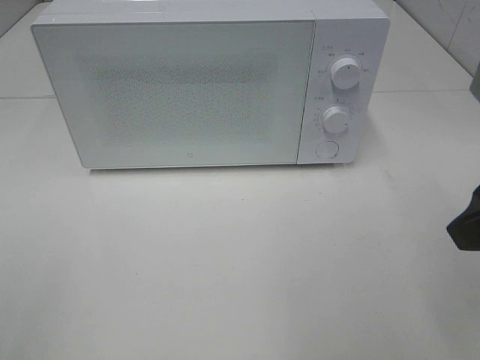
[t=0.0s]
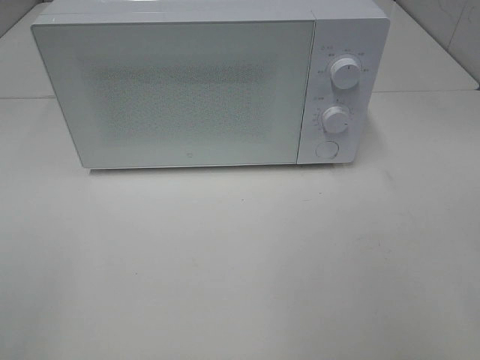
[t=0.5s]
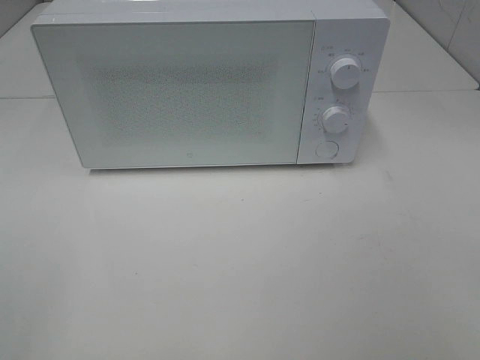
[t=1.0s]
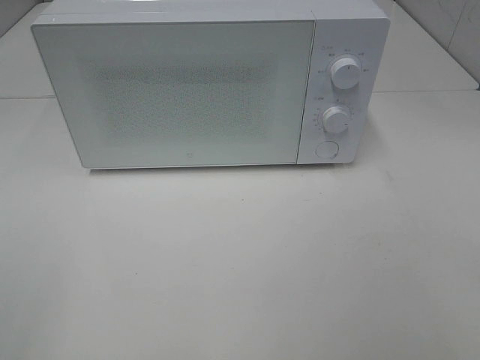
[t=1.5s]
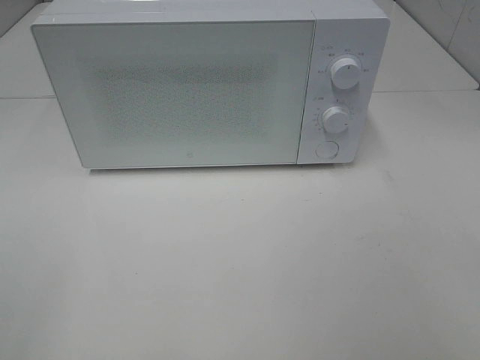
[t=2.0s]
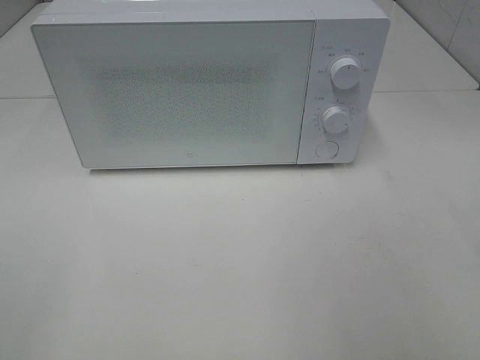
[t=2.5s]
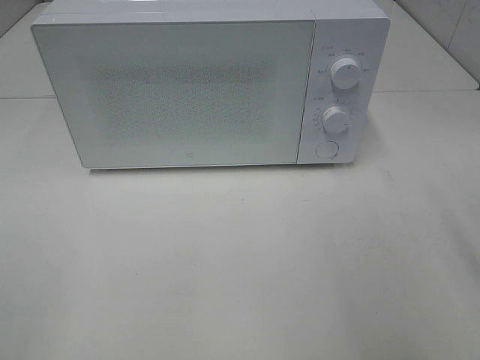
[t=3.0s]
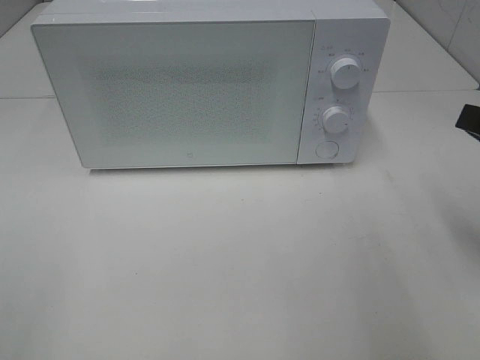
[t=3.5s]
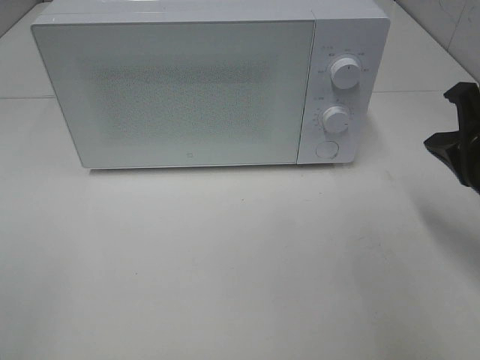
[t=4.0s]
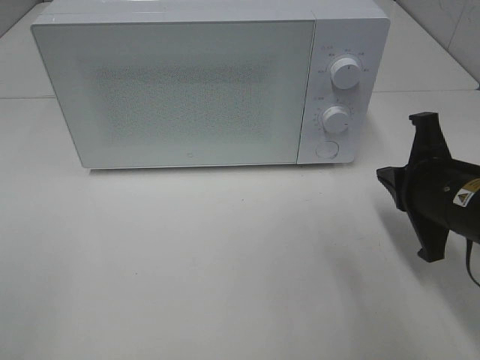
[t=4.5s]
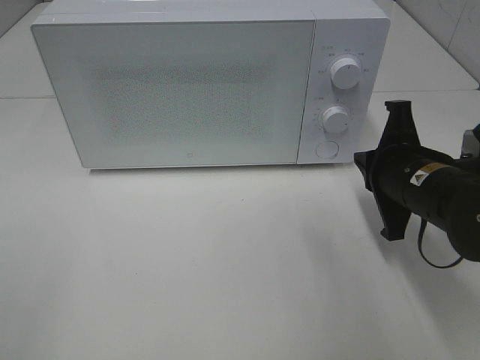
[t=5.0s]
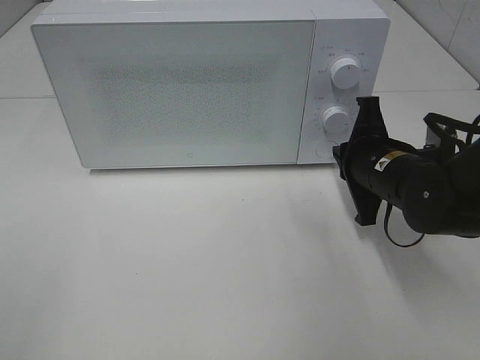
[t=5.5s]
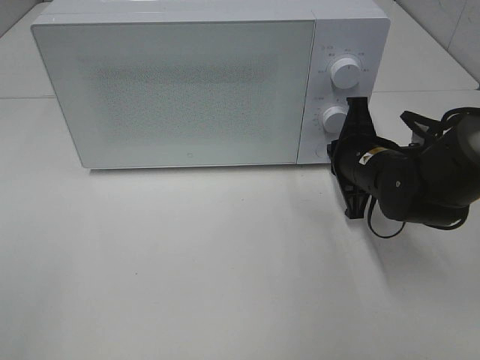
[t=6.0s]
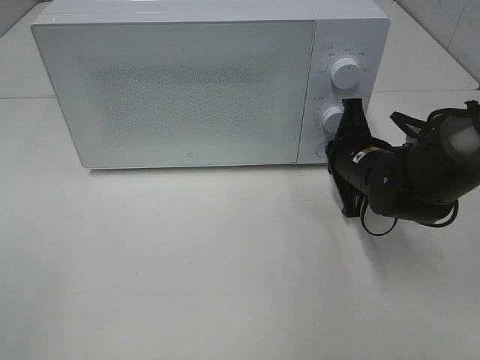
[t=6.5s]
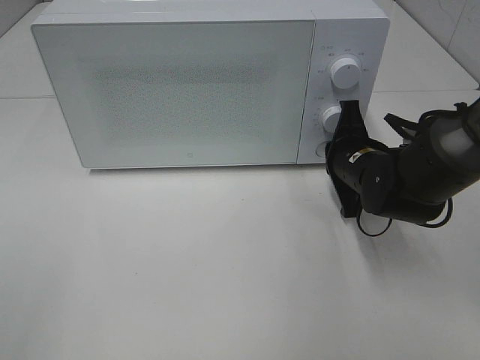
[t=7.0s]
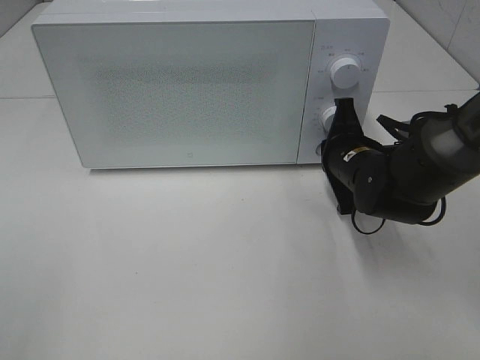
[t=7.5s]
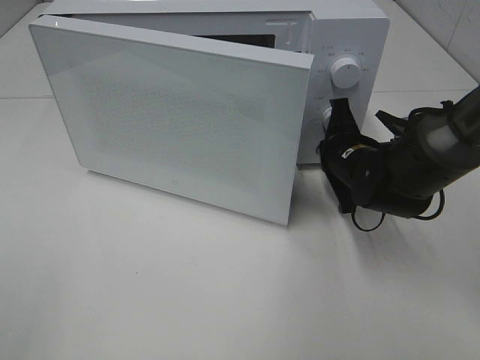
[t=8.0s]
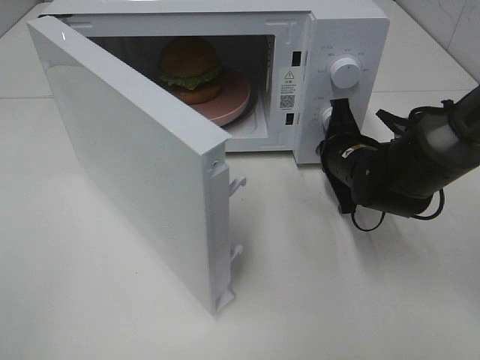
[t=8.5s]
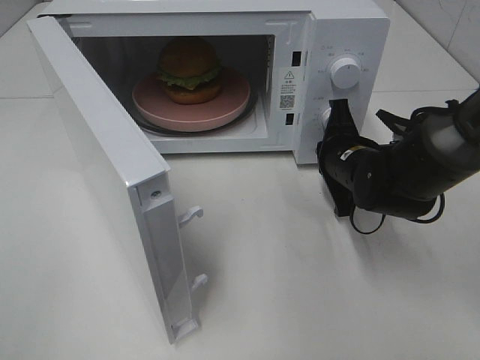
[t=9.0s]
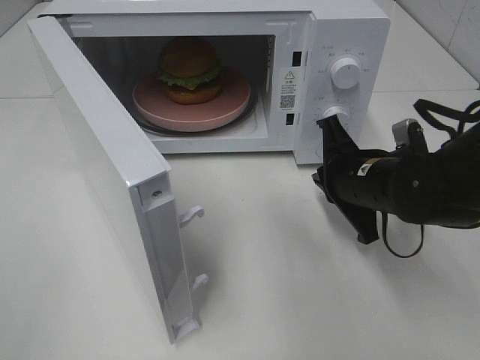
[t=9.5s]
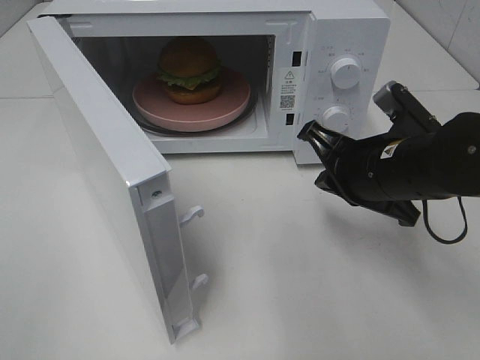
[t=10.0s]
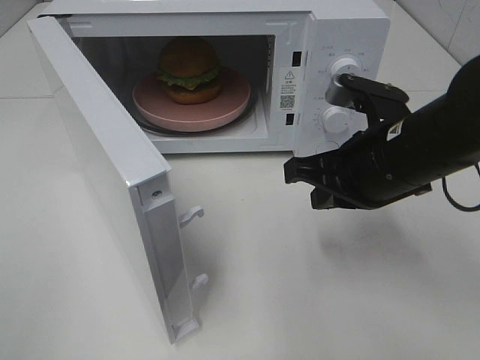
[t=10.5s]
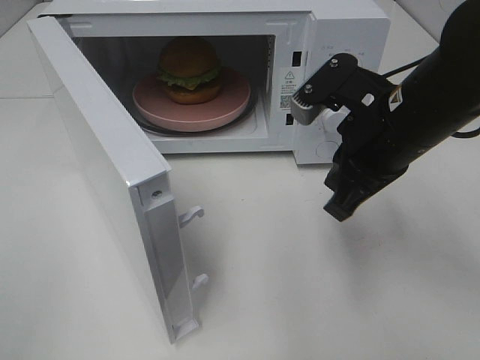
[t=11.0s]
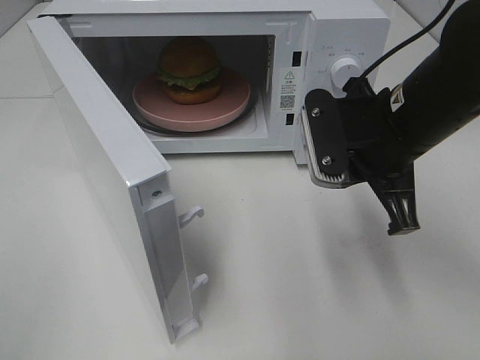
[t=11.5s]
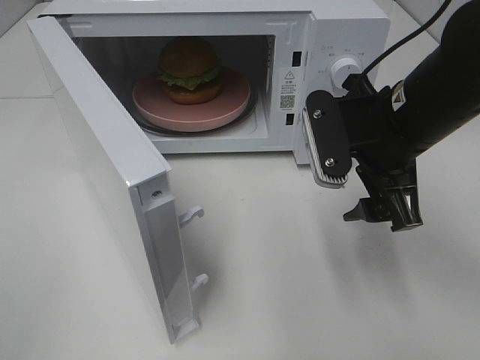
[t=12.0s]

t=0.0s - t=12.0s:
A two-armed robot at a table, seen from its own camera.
Task of the whole recording: Heat the burger.
Step, t=0.0s - t=9.0s: Right hand: press the switch.
t=0.0s - t=2.0s: The right gripper moves backward and to the right, roughly 15 cm.
t=2.0s - t=4.0s: The right gripper shifts about 25 cm forward and downward, and closes its fingers.
t=4.0s - t=6.0s: The right gripper travels forward, to the left and downward by some 15 cm.
t=6.0s - t=8.0s: There are only small adjustments of the grippers.
t=8.0s - t=10.0s: The right gripper goes roughly 10 cm backward and upward.
t=10.0s - t=12.0s: The right gripper is displaced upward by about 5 cm, and opens up.

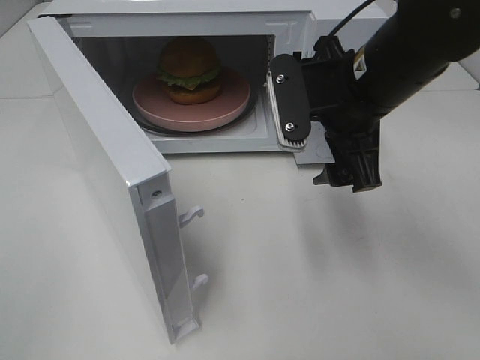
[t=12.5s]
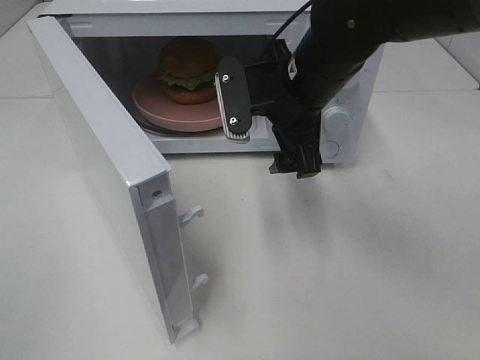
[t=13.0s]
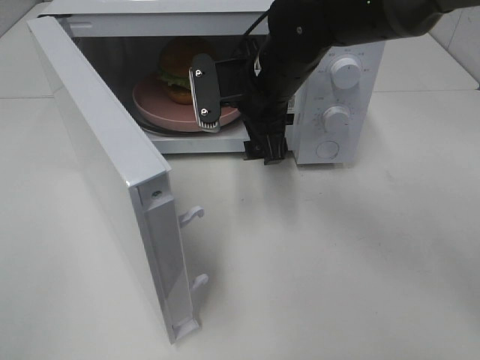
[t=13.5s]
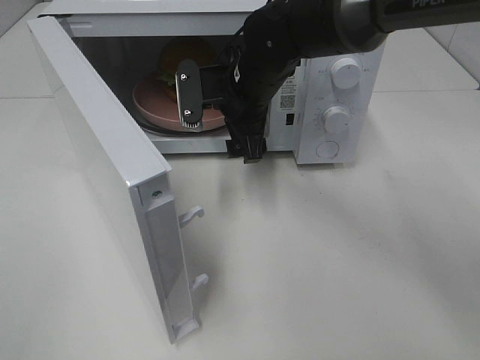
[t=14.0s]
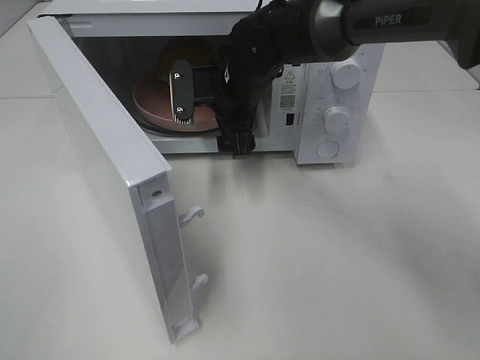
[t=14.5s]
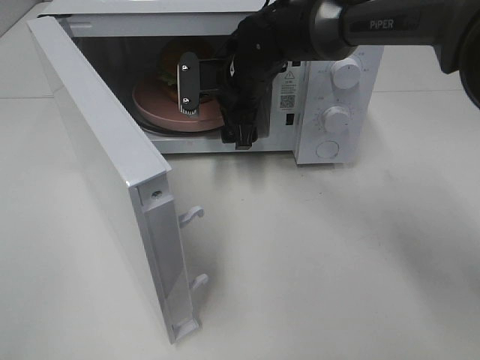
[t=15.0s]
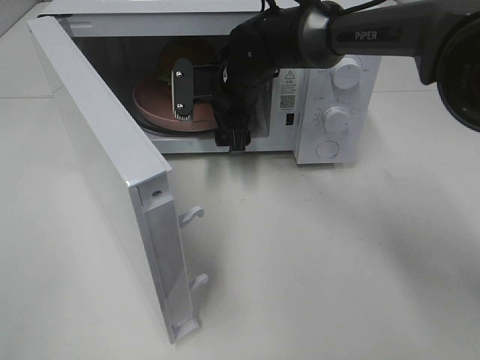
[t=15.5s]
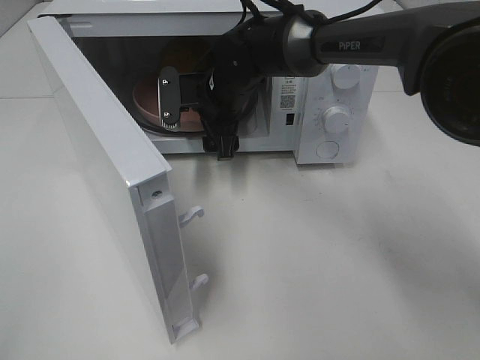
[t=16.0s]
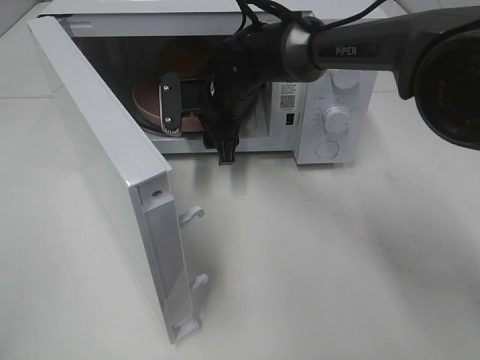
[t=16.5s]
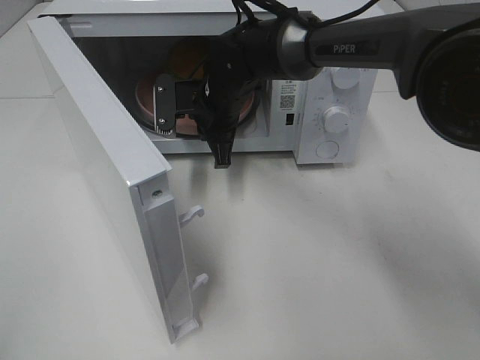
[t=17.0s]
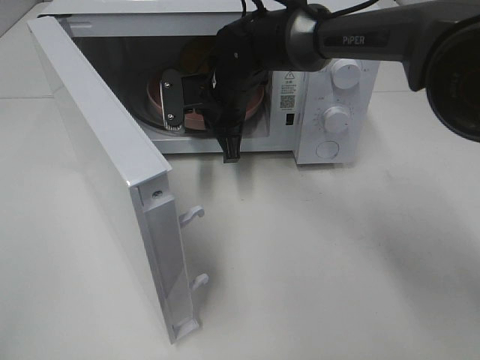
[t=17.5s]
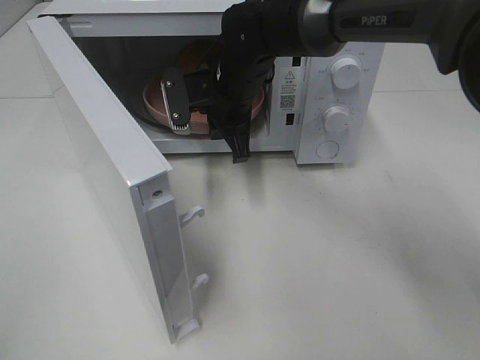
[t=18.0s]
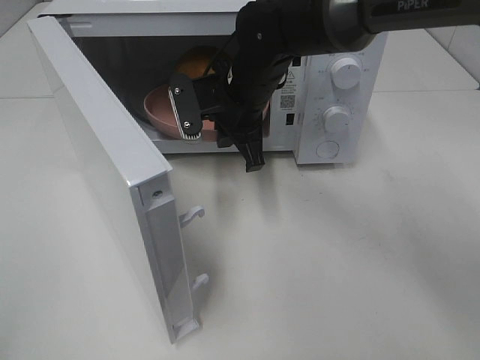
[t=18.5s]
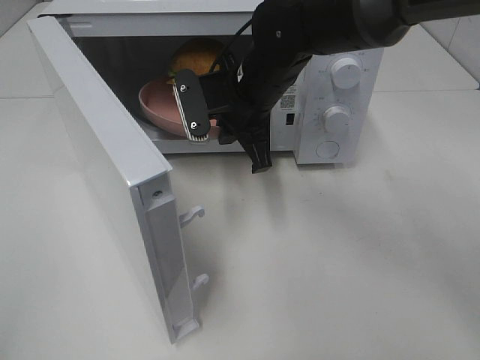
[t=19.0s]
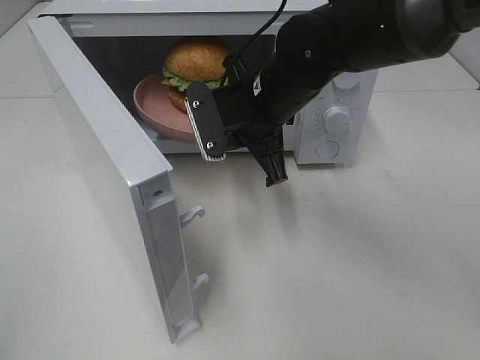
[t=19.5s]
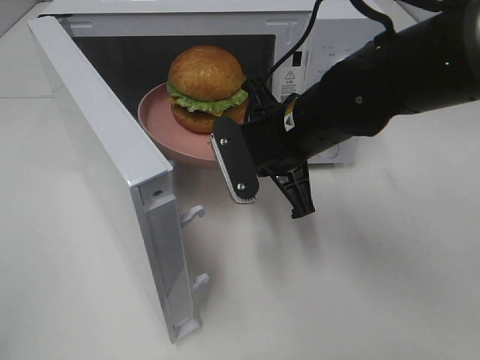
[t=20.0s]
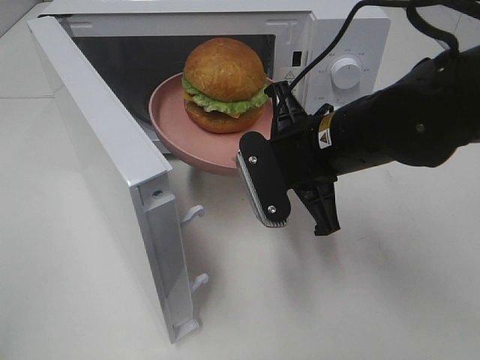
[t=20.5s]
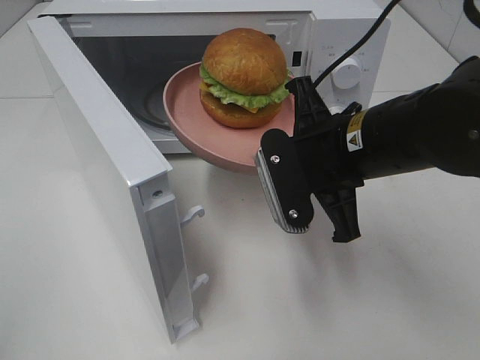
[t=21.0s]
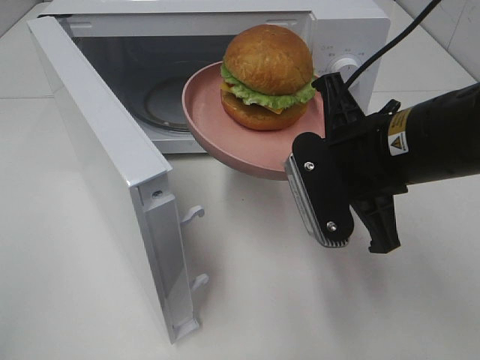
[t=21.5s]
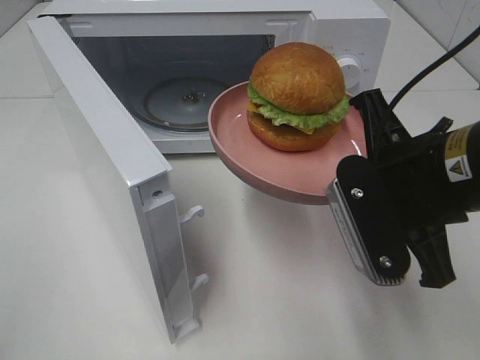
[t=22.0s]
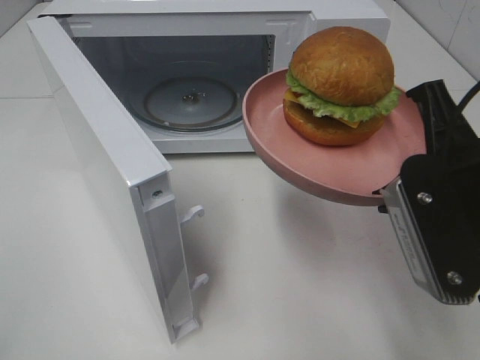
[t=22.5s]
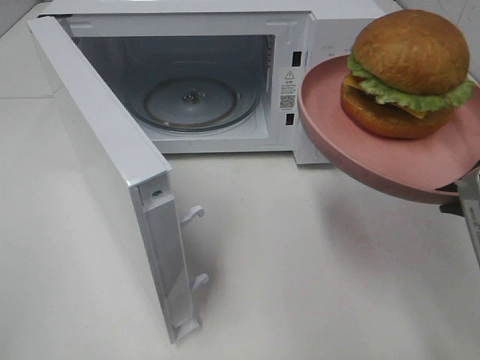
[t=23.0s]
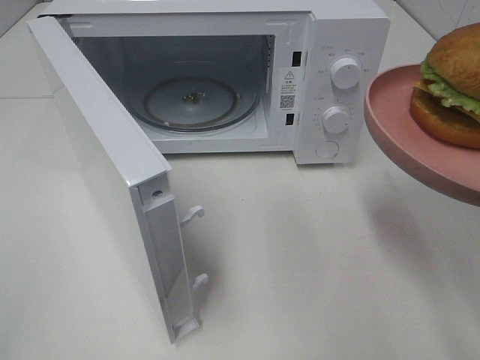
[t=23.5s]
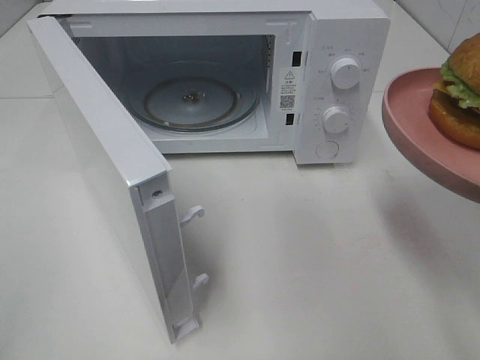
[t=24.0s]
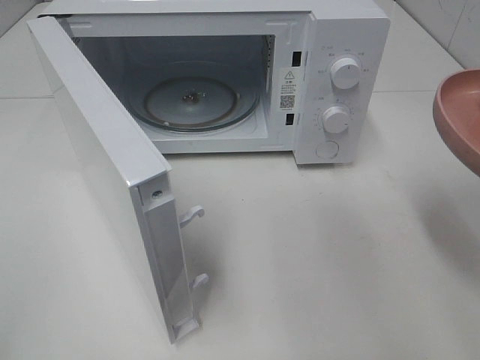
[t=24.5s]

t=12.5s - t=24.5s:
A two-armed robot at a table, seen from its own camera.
Task of the whole recording: Heat the burger.
Step, t=12.5s - t=16.5s: Right hand: grab the plate with the hamburger.
t=12.5s - t=14.5s: The right gripper shifts some 20 cm forward, to the left and downward.
t=14.5s - t=16.5s: There are only small adjustments of the grippers.
t=16.5s - t=18.5s: The right gripper ends up approximately 5 cm from where it was, and closes its fingers.
t=18.5s - t=20.5s: The right gripper is displaced backward and to the right by some 15 cm.
t=20.5s - t=22.5s: The right gripper heads backward, to the right and upward, covering some 15 cm.
t=22.5s - t=24.5s: The right gripper heads to the right, covering approximately 5 cm.

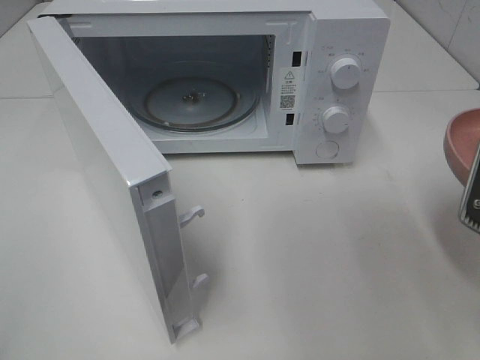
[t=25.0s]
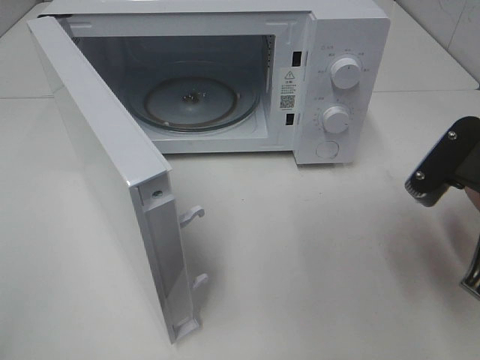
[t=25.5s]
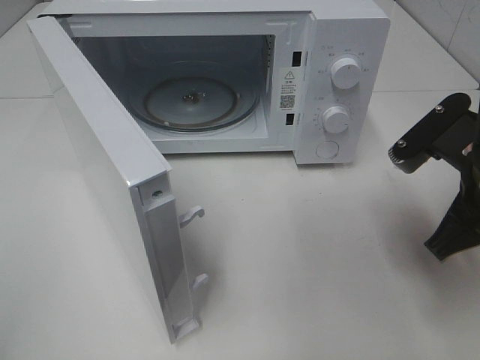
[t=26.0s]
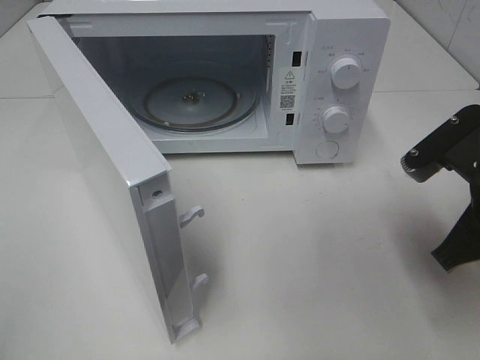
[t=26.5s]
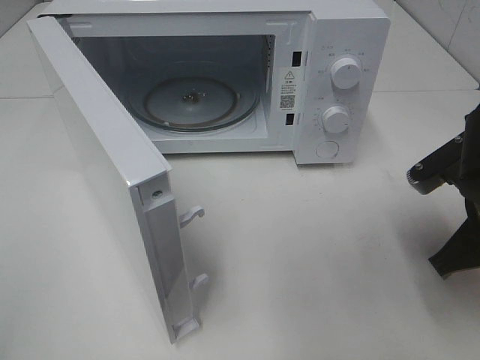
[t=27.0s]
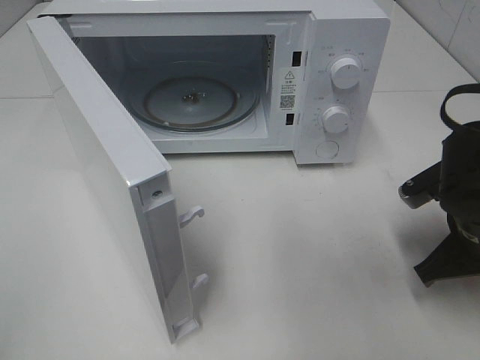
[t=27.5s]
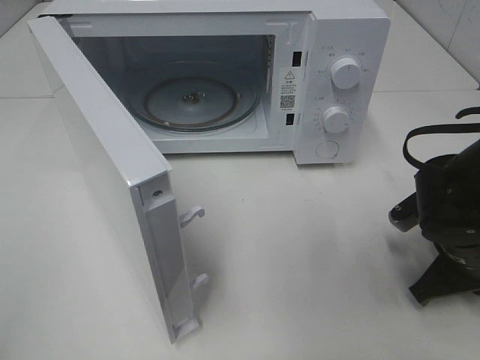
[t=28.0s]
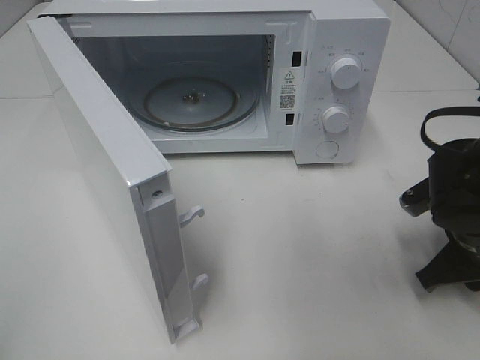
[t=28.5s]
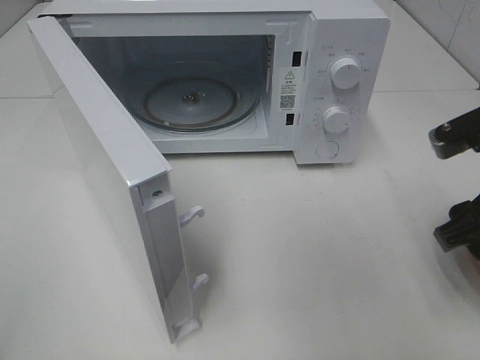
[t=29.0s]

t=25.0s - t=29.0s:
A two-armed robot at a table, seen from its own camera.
Task of the whole recording: Heat the burger.
Step, t=25.0s - t=28.0s: Right hand: place the plate on the table.
t=25.0s - t=27.0s: The right gripper travels downward and forward by approximately 10 cm.
t=27.0s - t=29.0s: The right gripper opens its fingers.
